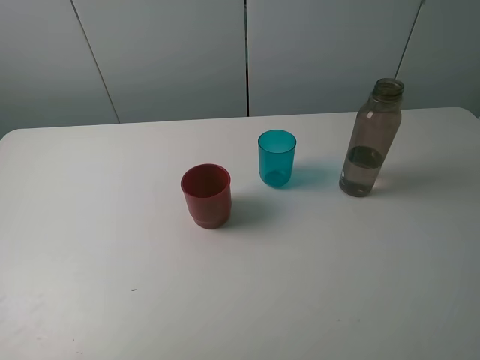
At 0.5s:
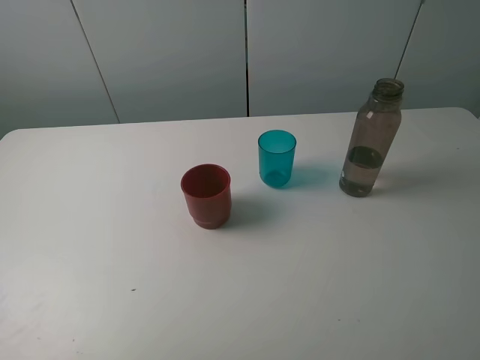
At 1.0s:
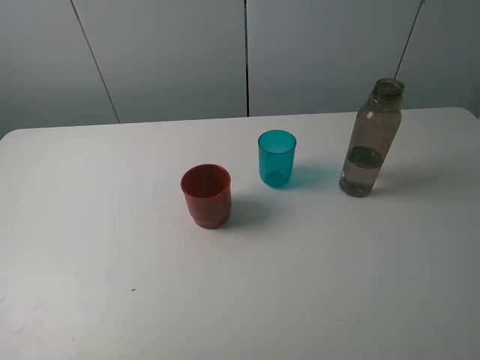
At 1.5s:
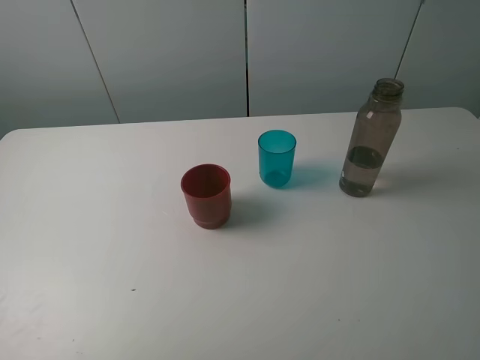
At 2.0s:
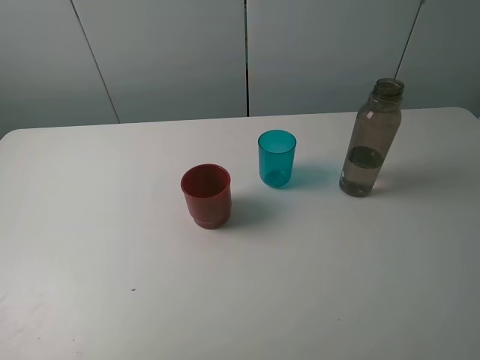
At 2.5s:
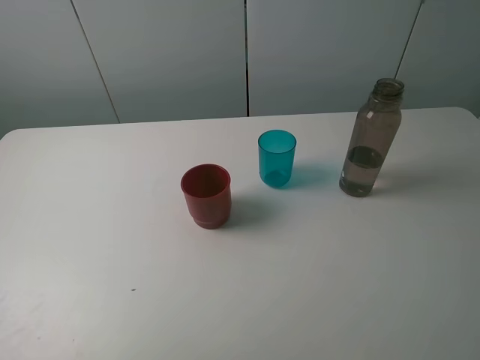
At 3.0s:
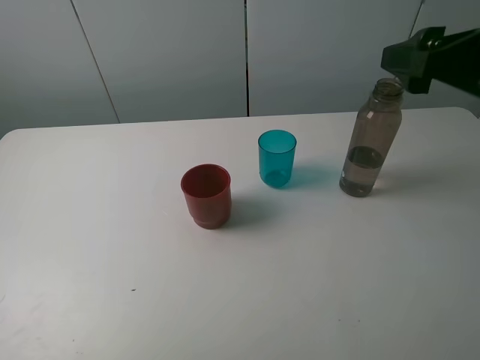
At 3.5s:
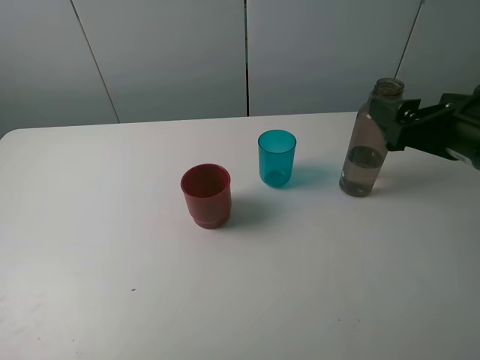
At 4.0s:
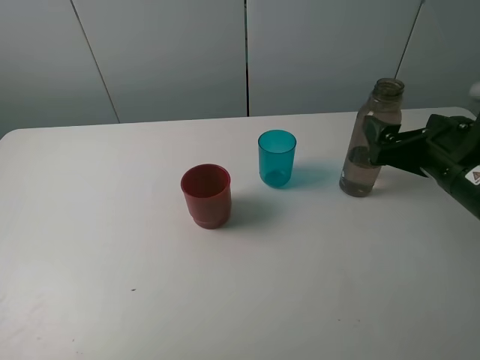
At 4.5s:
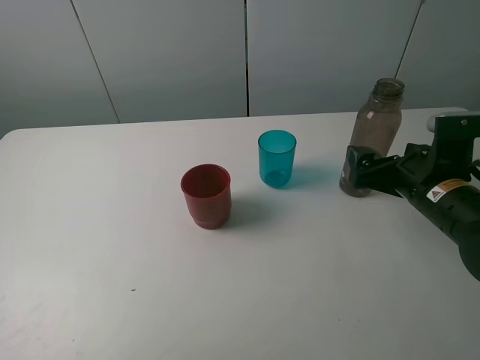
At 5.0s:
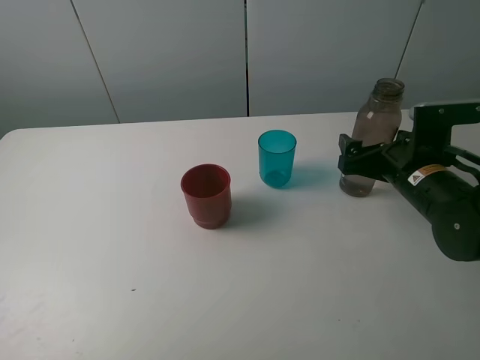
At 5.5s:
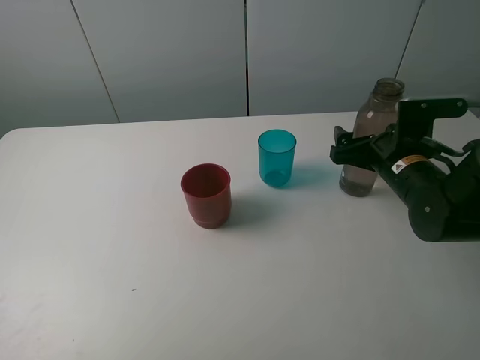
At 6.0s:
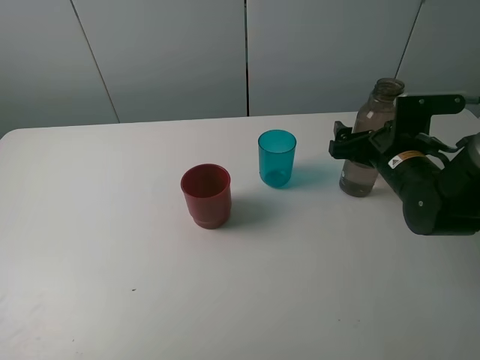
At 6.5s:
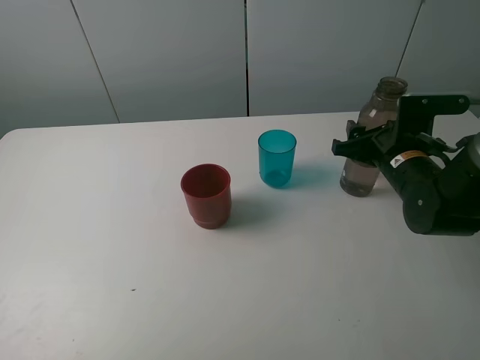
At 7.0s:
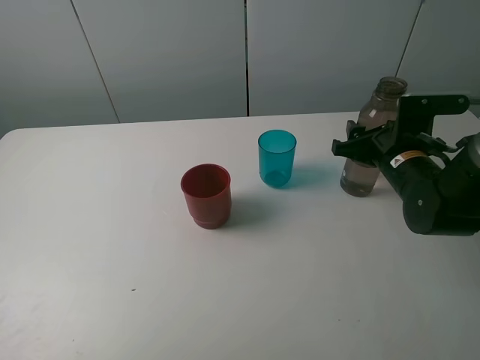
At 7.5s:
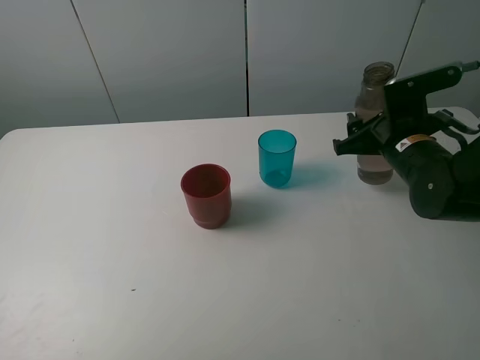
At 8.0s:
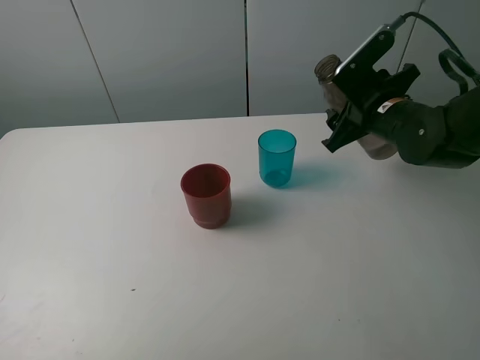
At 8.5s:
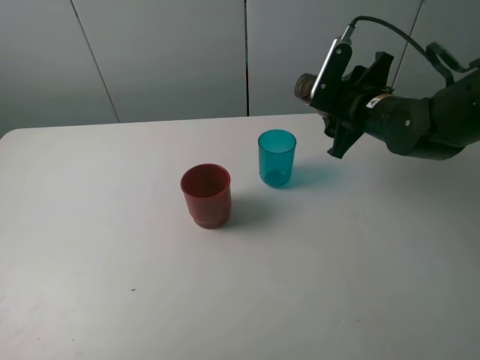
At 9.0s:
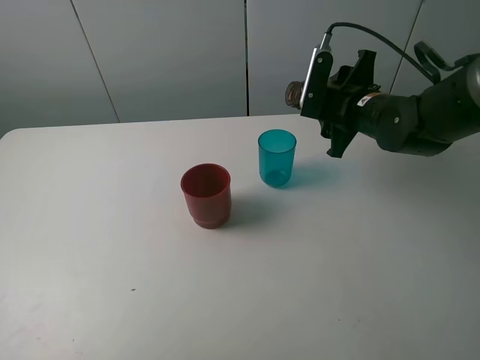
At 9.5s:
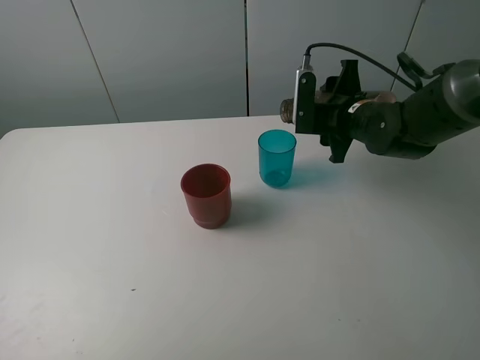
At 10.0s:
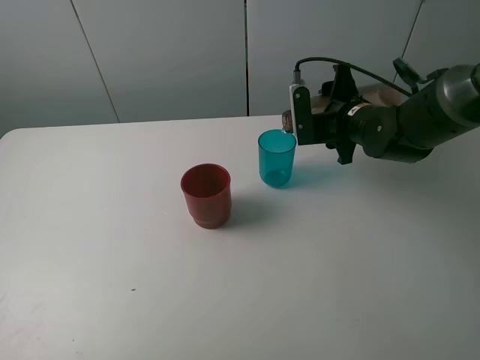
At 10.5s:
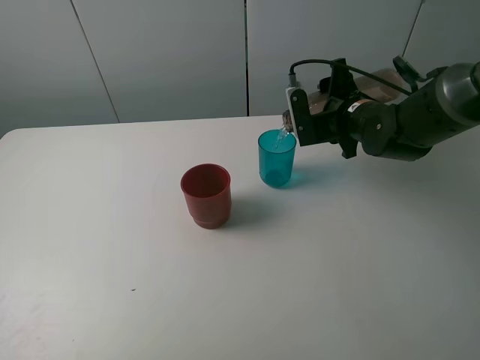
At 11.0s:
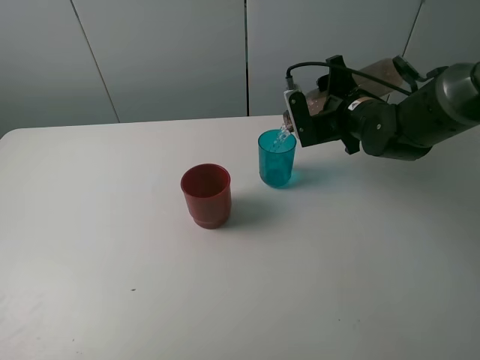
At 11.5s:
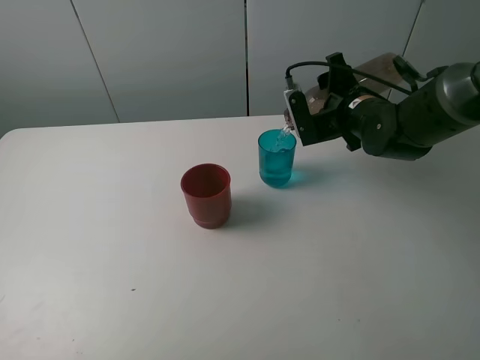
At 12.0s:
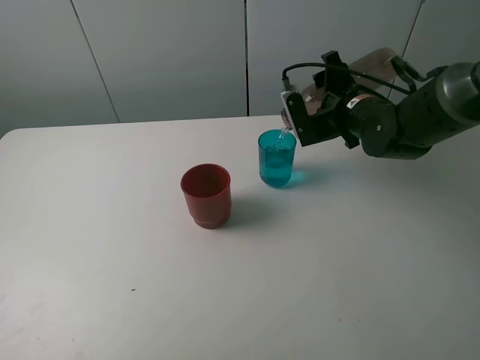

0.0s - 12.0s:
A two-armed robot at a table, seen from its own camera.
Task of the whole recording: pick up the bottle and pour water into the cup, then pick up the cup containing water and pour it into another cup.
Step, 0.0s - 6.0s: Grasp the brown bottle with the right gripper.
0.0s - 2.0s: Neither gripper changes place.
2.0s - 4.0s: The right gripper travels forward and downward by about 25 cm.
4.0s - 6.0s: The right gripper goes roughly 10 cm forward and downward.
6.0s - 8.0s: The right gripper is displaced upward by some 5 cm, and closes.
10.0s - 12.0s: The grippers move only a little.

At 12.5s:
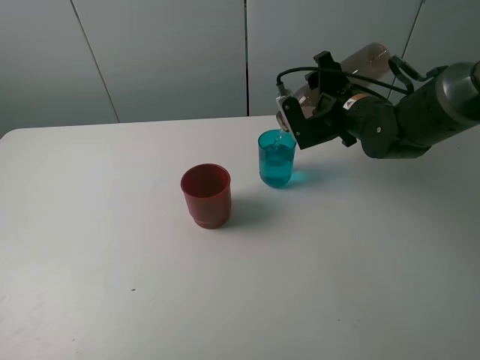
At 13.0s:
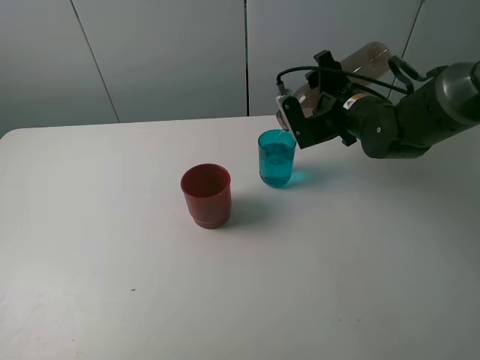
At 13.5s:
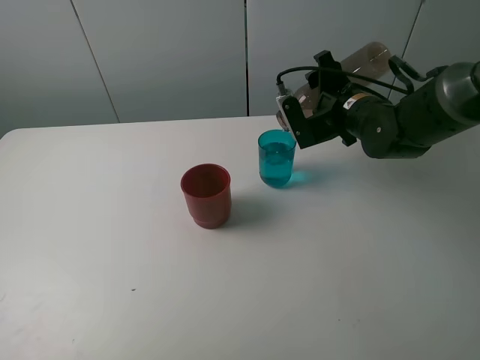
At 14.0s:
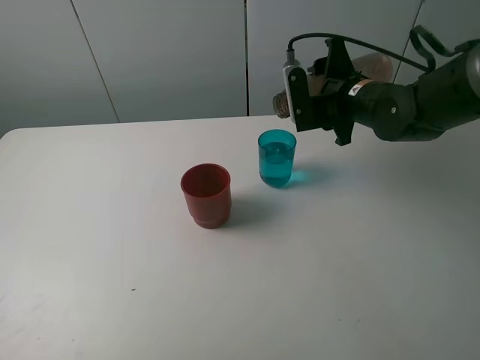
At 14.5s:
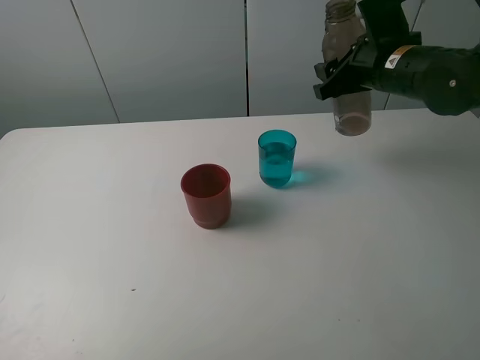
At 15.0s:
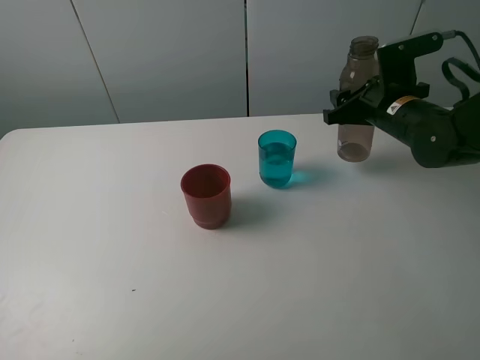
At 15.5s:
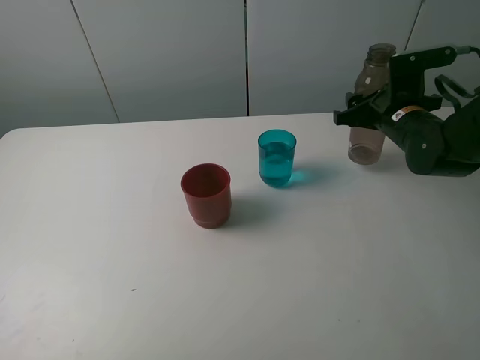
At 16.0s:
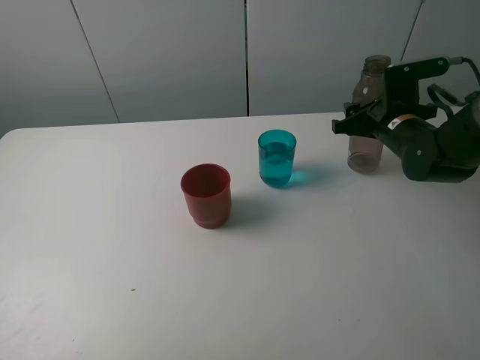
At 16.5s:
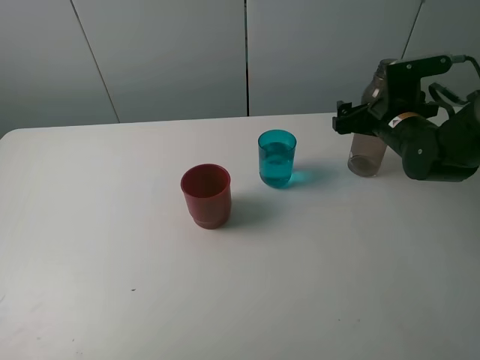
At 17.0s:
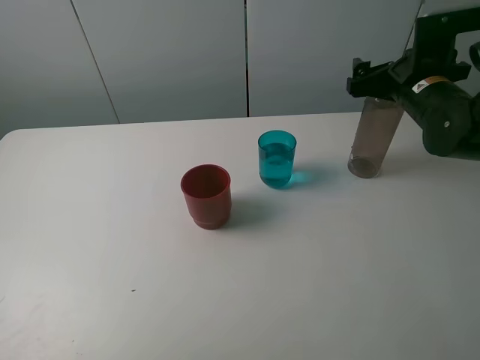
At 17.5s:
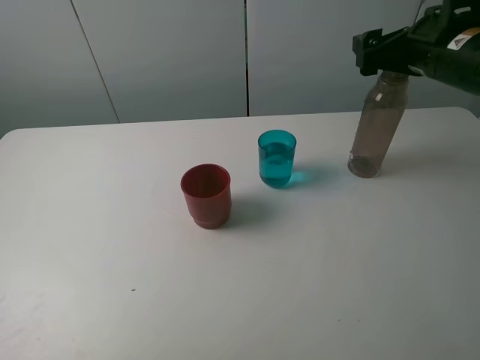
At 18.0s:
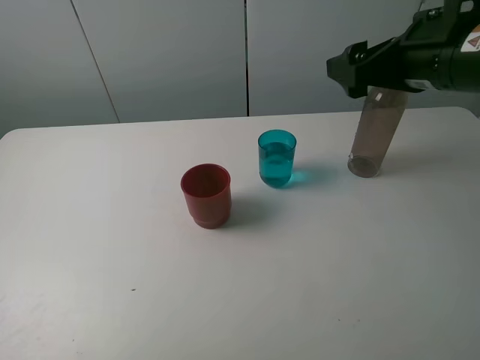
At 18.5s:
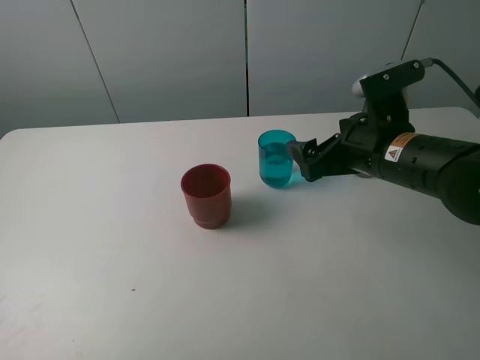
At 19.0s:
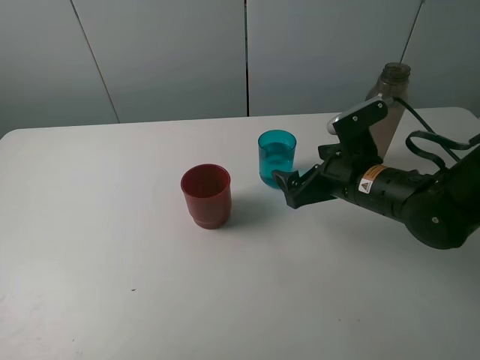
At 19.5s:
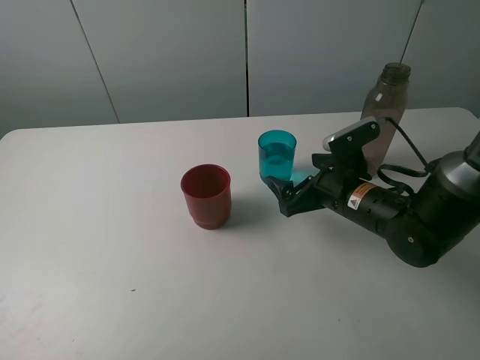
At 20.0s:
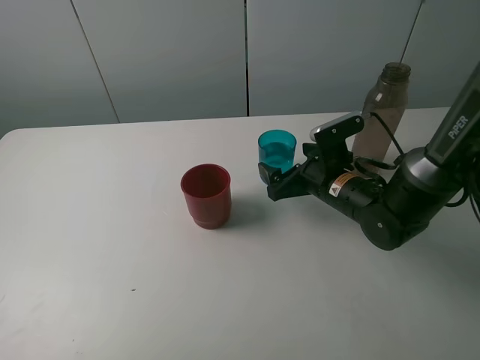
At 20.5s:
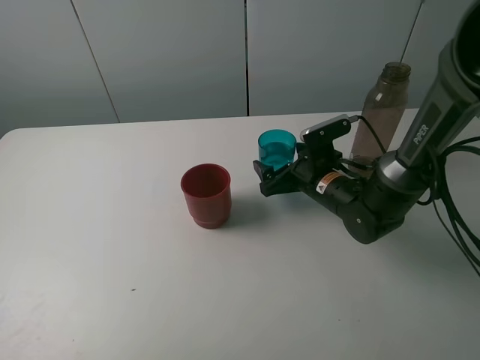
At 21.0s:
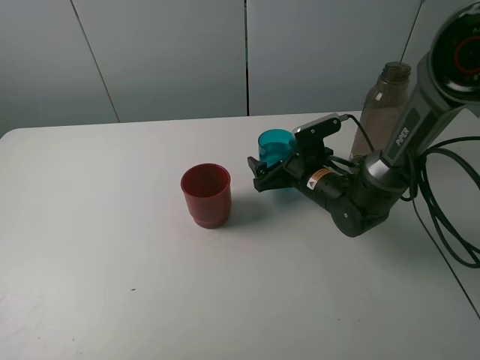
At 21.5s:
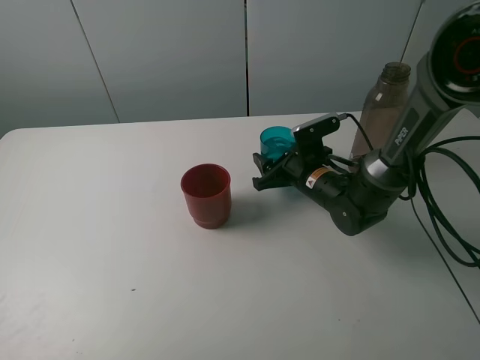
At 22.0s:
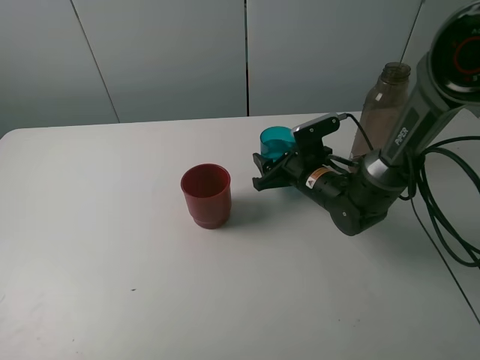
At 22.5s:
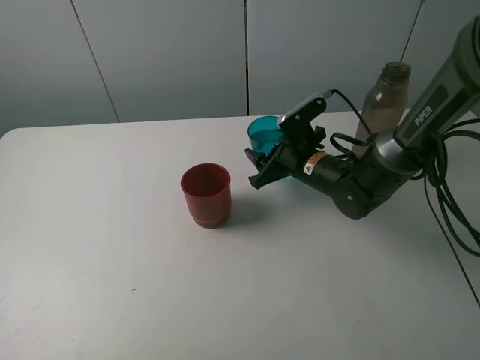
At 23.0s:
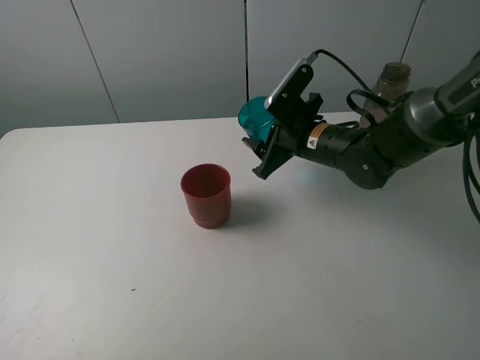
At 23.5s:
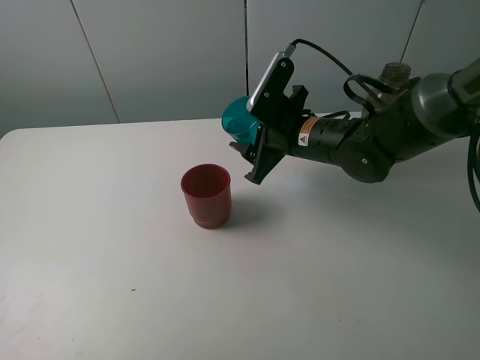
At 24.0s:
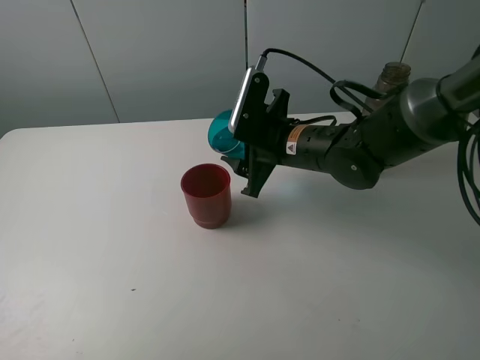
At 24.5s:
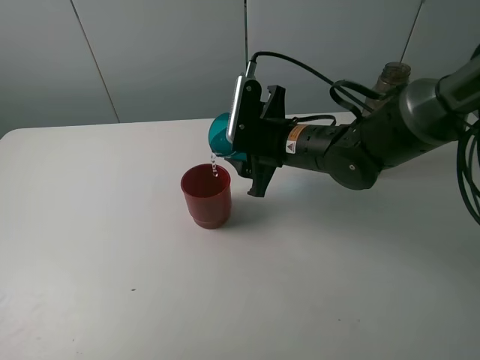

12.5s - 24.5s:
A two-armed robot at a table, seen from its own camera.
Task of the whole recording: pick up the bottle and pour water into the cup, then pick up the cup containing water and pour it into another cup.
Step, 14.0s - 16.5s: Place the brown bottle with the right gripper.
Step, 17.0s - 21.5s: Grasp the blue cup with the right gripper.
12.5s - 14.5s: The right gripper goes about 5 cm upward.
14.5s - 16.5s: The right gripper heads downward, covering about 10 cm, and opens.
16.5s - 18.5s: The right gripper is displaced backward and to the left by roughly 10 cm, and travels upward and back again, about 15 cm each way.
18.5s - 20.5s: The right gripper is displaced downward and forward by roughly 15 cm.
20.5s - 22.5s: The right gripper closes up.
22.5s - 24.5s: The right gripper travels upward by some 5 cm.

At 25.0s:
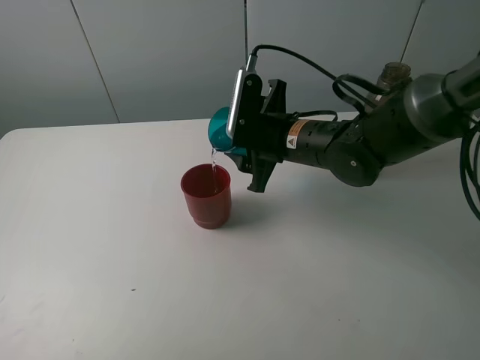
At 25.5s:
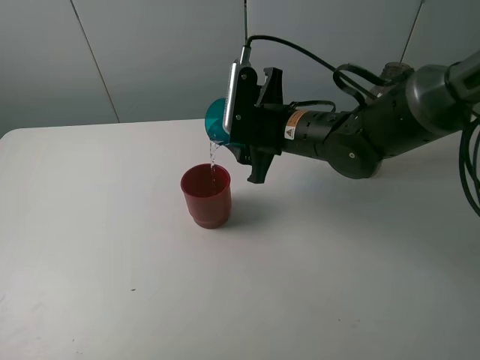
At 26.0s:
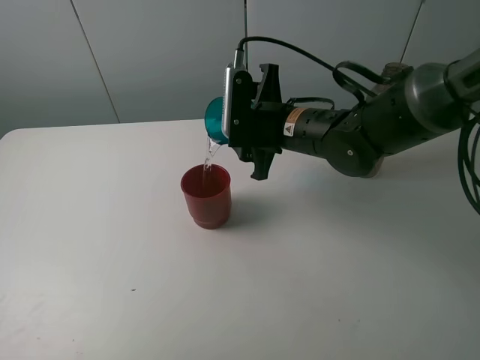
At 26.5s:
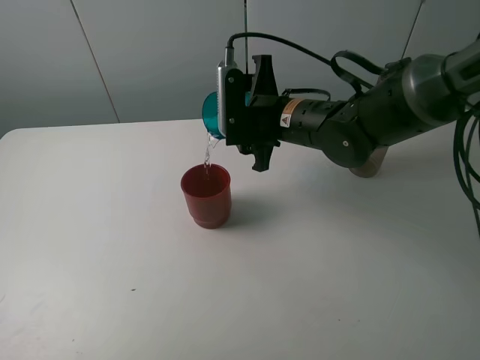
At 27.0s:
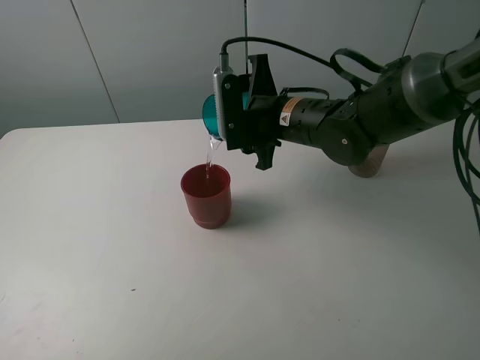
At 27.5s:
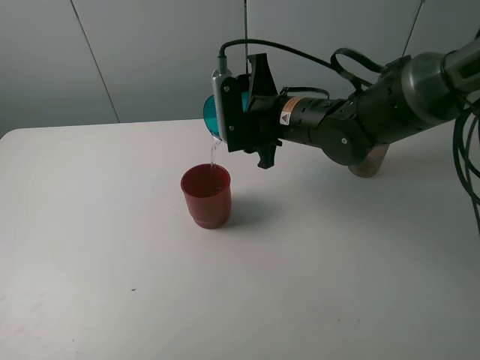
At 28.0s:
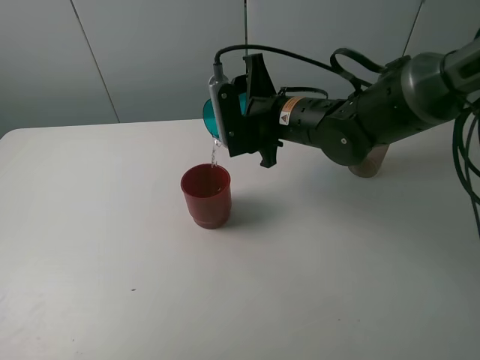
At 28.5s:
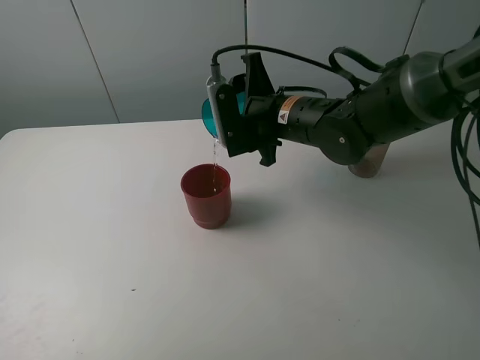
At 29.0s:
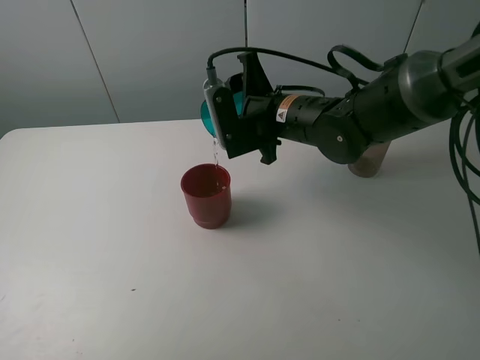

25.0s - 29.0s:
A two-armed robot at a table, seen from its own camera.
Task of the whole recording: pick up the bottle and pour water into the cup, then pick up the cup containing water and pour it into another cup.
27.0s - 29.0s: The grippers stay close to where they were, moving slightly.
